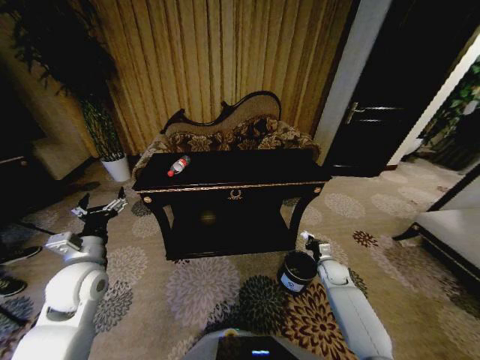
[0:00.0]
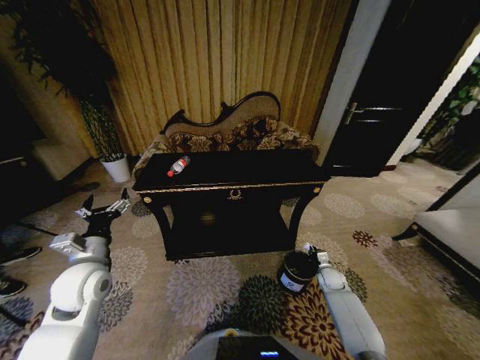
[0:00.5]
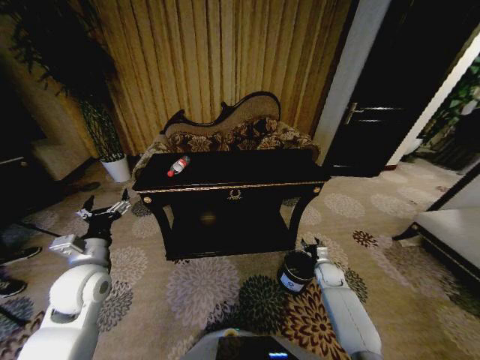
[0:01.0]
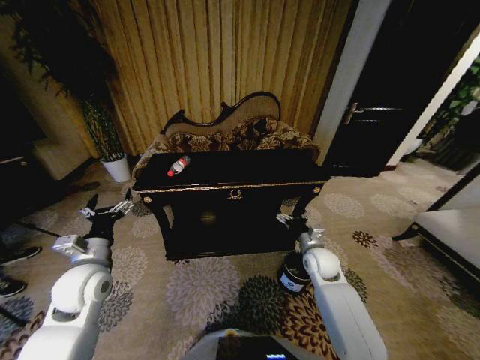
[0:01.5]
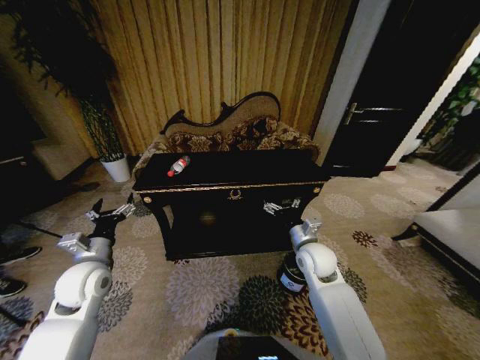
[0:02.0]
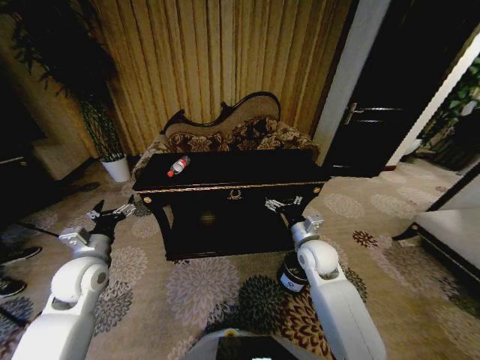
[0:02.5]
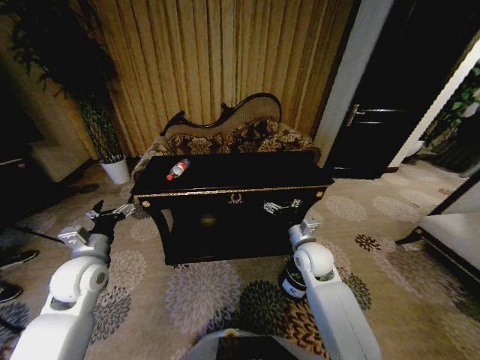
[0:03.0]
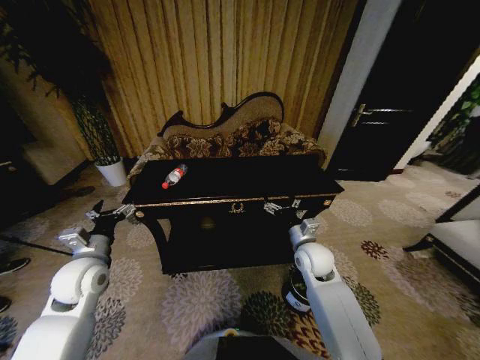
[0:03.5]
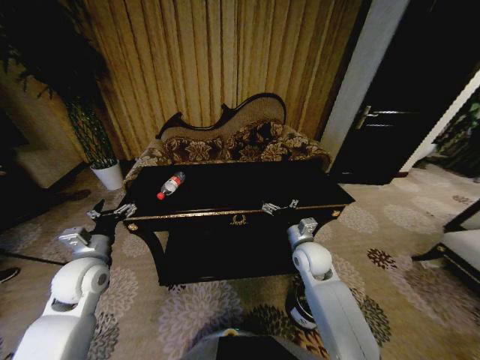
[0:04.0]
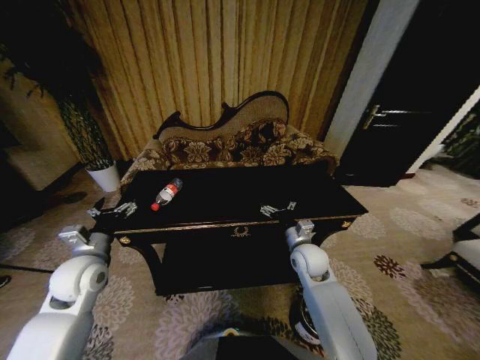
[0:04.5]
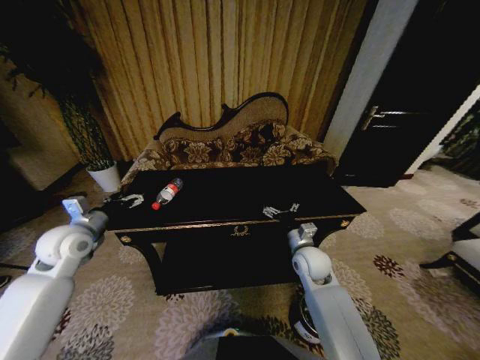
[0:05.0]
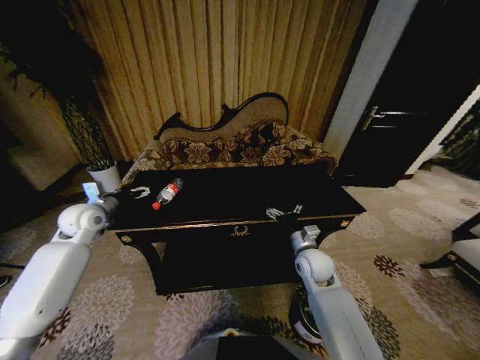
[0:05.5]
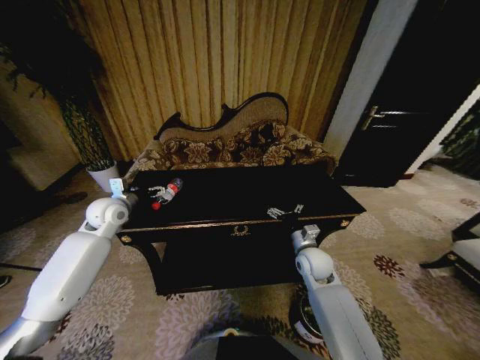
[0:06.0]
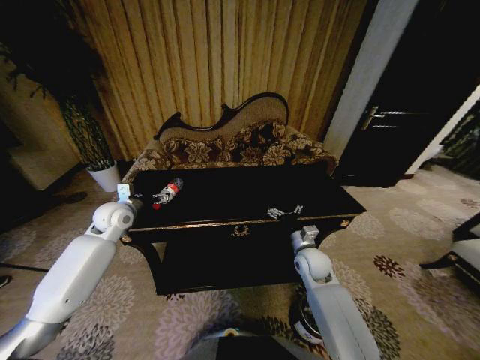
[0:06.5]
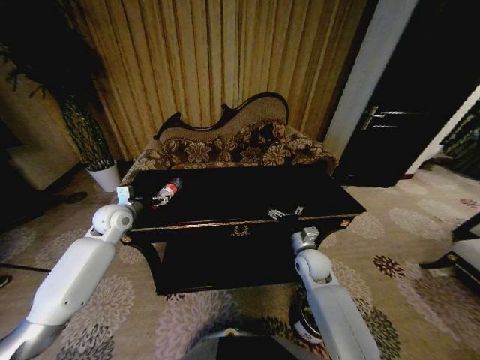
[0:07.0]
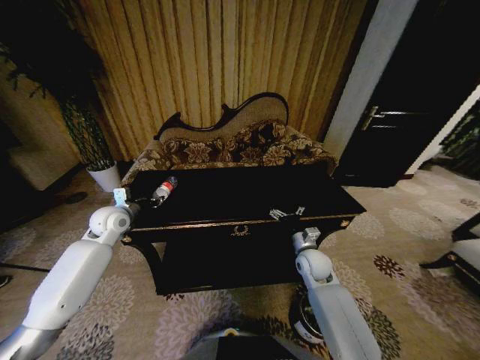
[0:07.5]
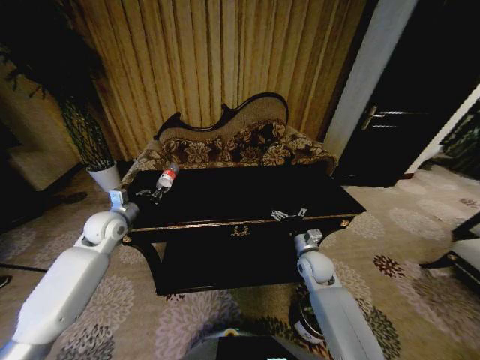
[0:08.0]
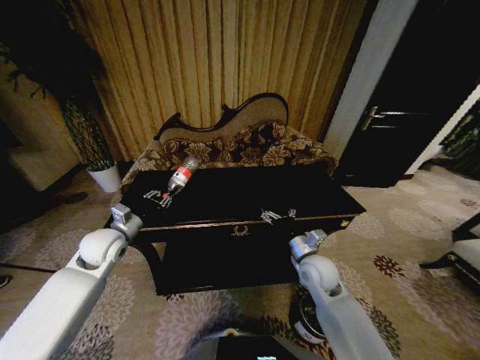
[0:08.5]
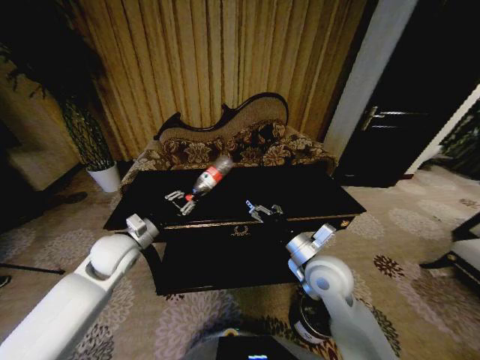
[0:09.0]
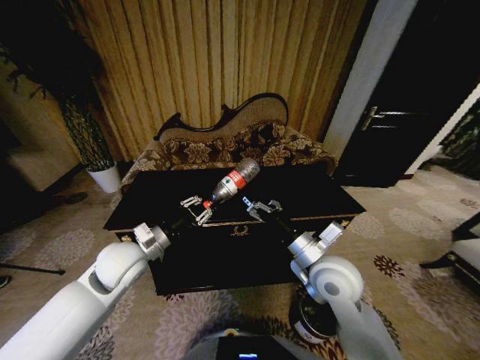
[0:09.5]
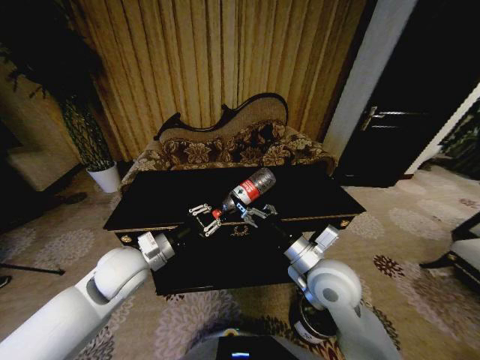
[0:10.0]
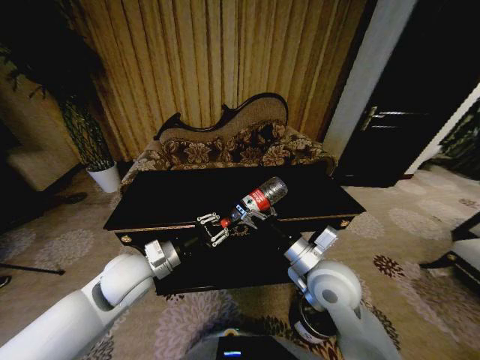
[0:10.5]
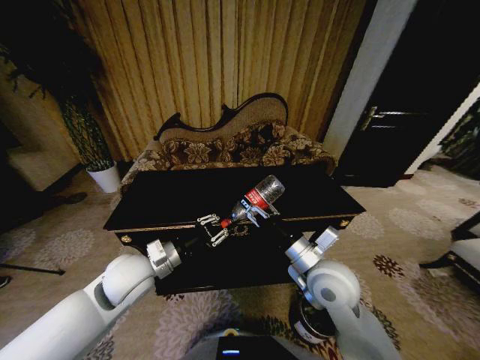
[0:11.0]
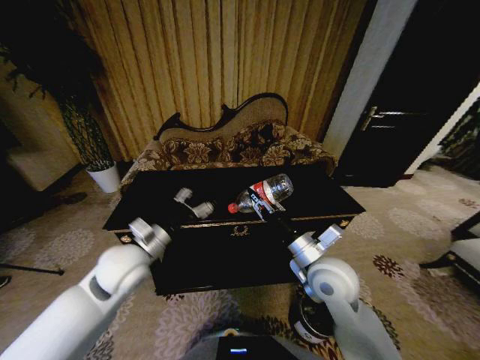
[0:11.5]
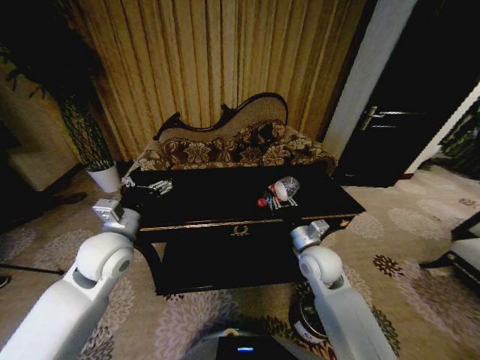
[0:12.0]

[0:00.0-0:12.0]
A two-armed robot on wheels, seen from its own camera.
Task of the whole recording: Move to the front of the table and place the trash on the table into the trash bin.
0:00.0 to 0:02.0: The right gripper travels upward and to the left by some 25 cm, and opens its fingers.
0:04.0 to 0:06.0: The left gripper is displaced forward by some 15 cm.
0:06.0 to 0:08.0: The left gripper closes up.
0:08.0 to 0:10.0: The right gripper shifts about 20 cm upward, backward and to the left; the left gripper heads backward and to the right, covering about 20 cm.
0:10.0 to 0:12.0: The left gripper opens. The right gripper is displaced forward and downward by roughly 10 cm, and closes up.

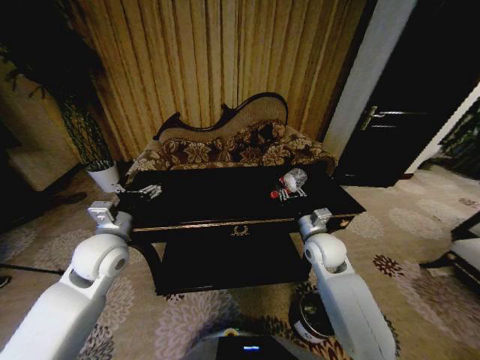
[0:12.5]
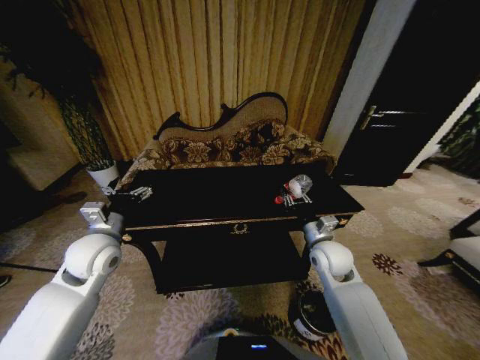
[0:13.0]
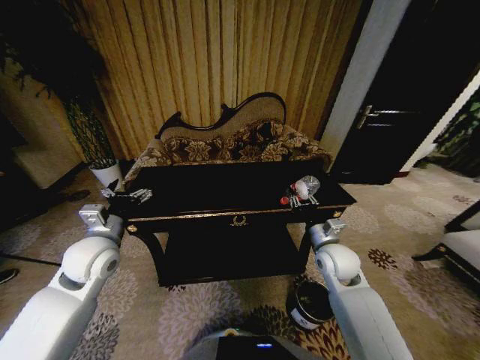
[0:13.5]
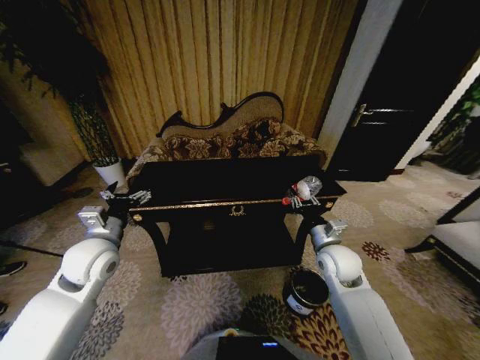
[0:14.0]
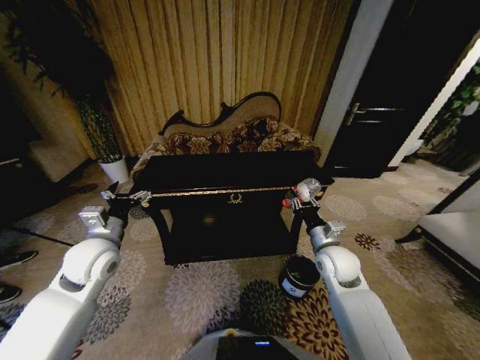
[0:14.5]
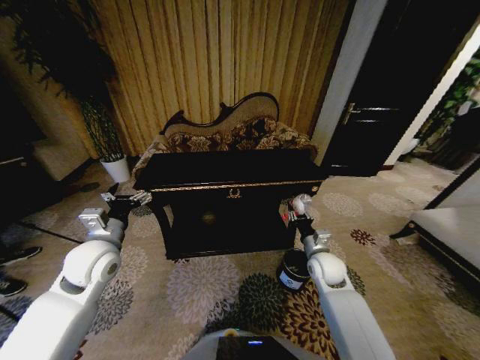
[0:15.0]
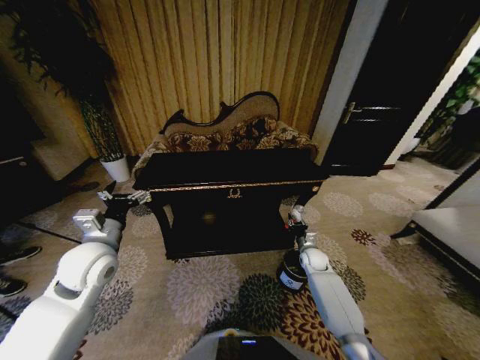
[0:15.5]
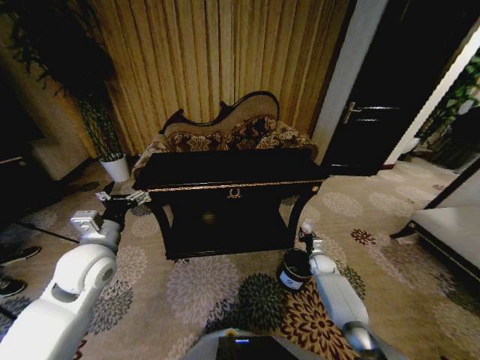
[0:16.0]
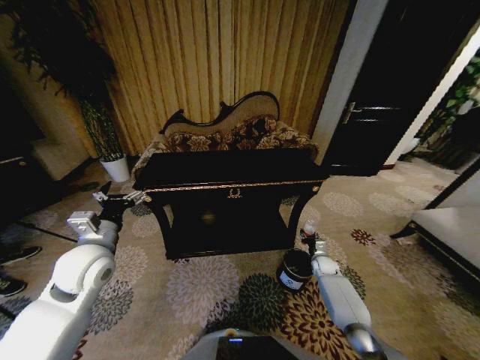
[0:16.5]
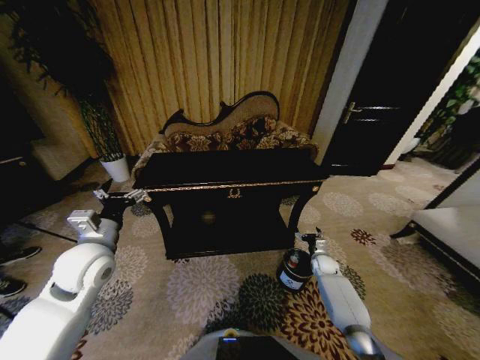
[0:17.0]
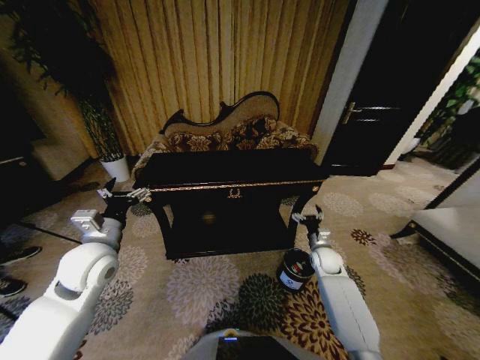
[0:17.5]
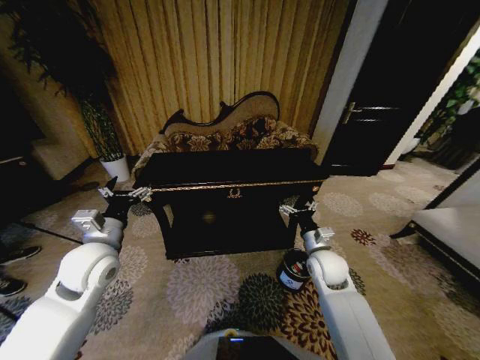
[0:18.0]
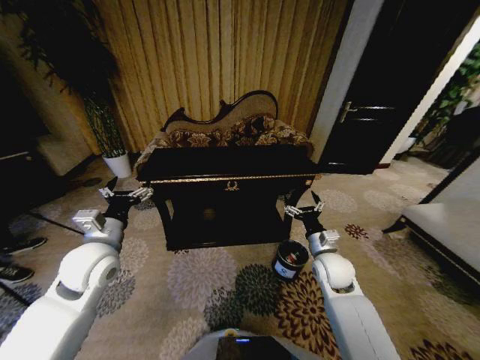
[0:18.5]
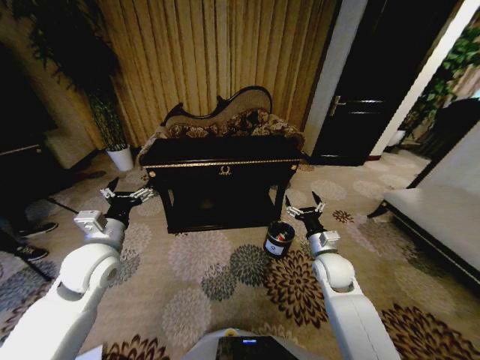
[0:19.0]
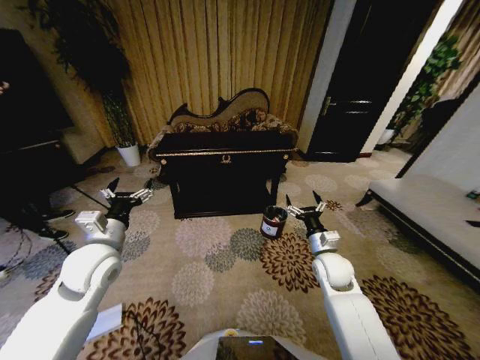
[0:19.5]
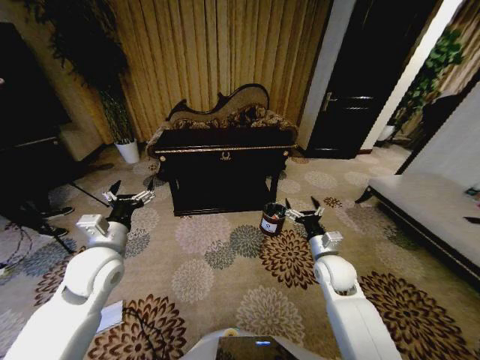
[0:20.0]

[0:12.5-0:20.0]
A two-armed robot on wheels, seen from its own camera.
Task of the whole recording: Move to the front of the table and place the trash on the table into the trash bin.
0:14.5 to 0:16.5: The right gripper travels downward and to the right by about 30 cm.
0:16.5 to 0:18.0: The right gripper moves upward and to the left, about 25 cm, and opens up.
